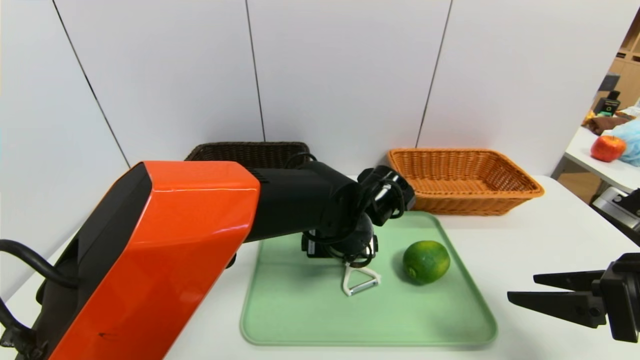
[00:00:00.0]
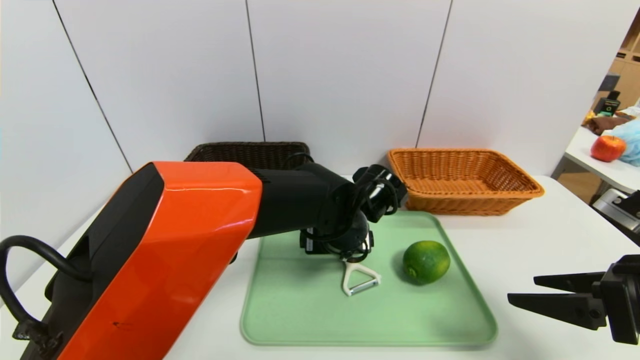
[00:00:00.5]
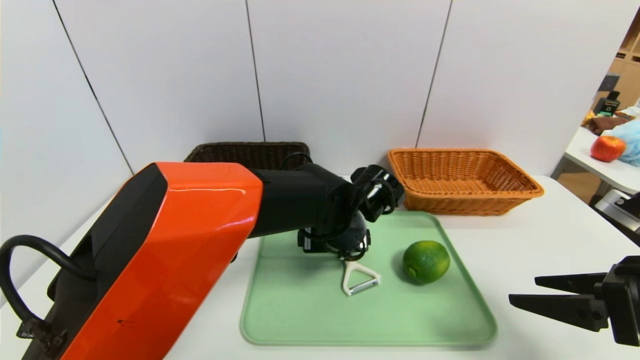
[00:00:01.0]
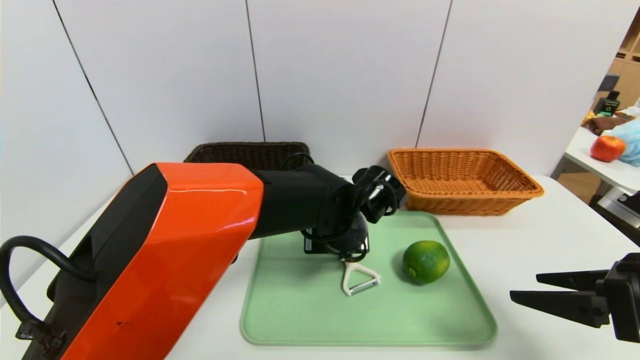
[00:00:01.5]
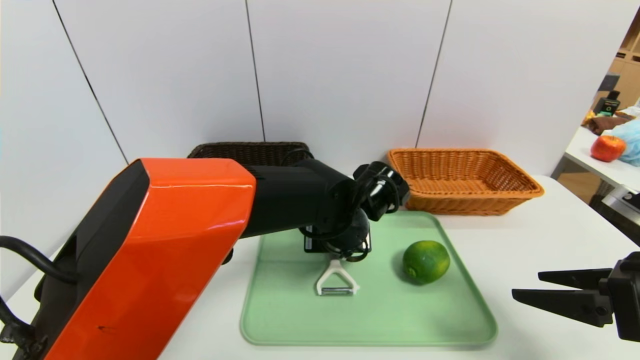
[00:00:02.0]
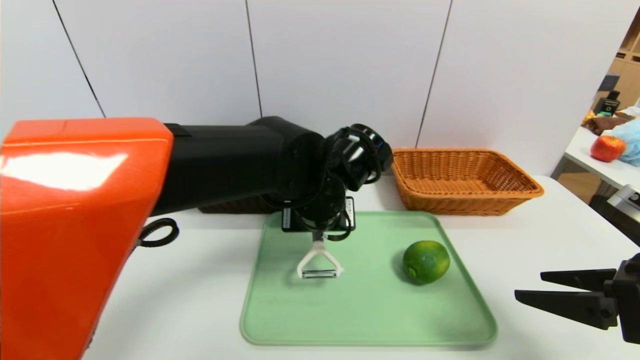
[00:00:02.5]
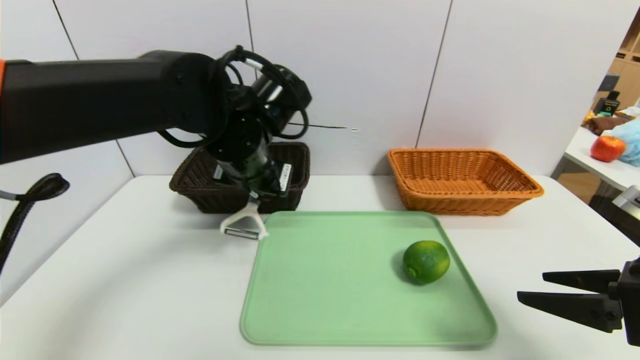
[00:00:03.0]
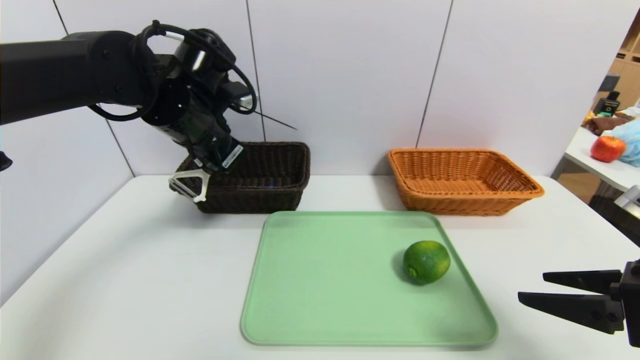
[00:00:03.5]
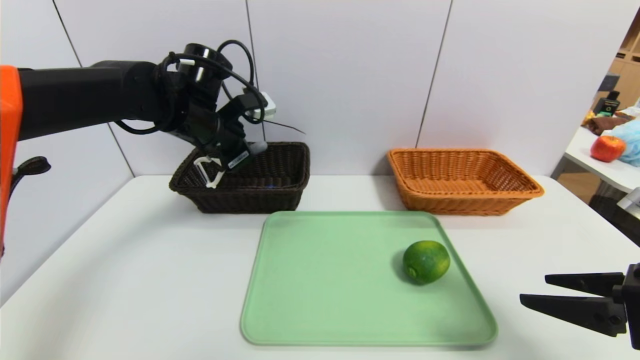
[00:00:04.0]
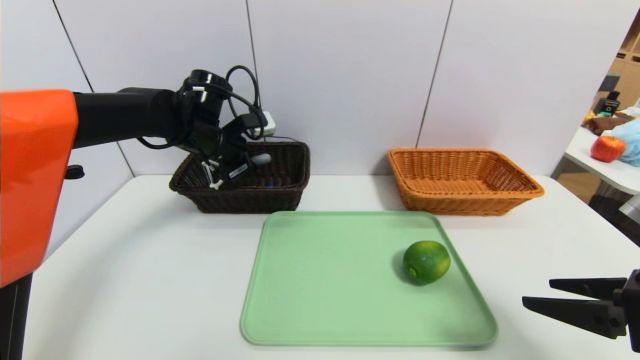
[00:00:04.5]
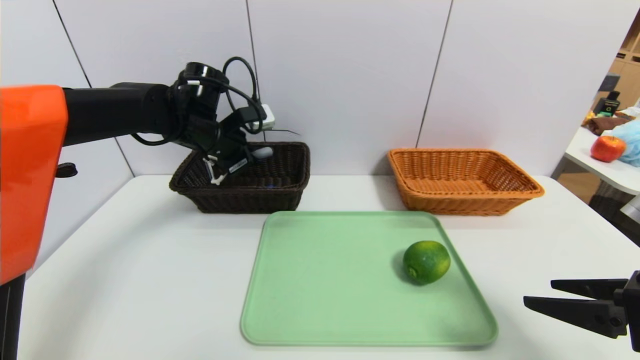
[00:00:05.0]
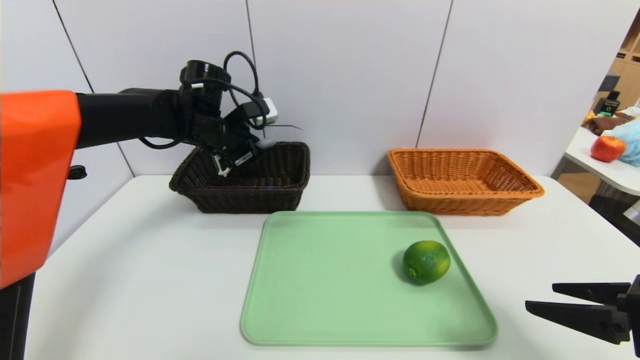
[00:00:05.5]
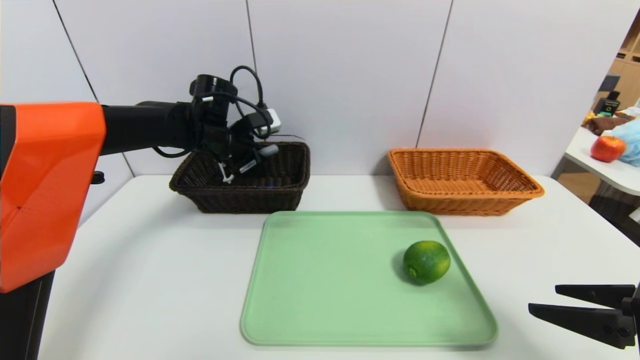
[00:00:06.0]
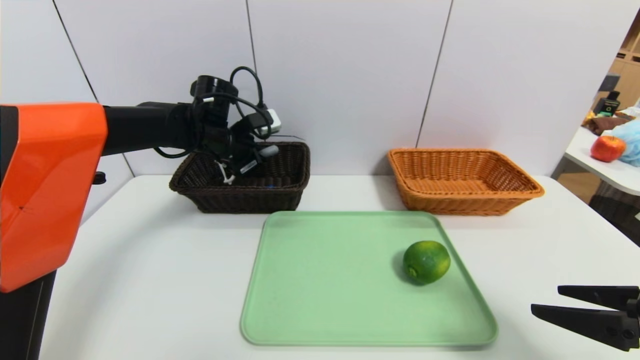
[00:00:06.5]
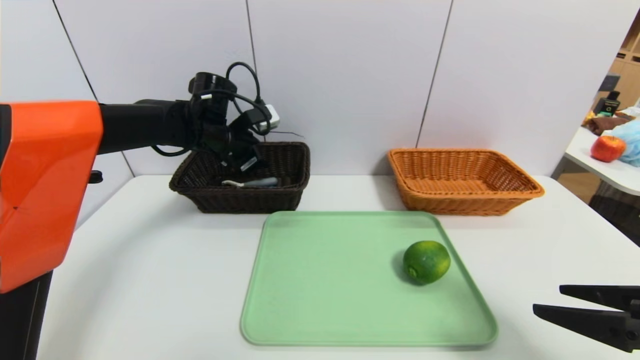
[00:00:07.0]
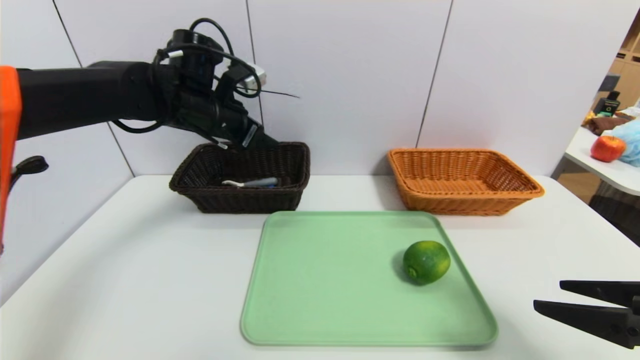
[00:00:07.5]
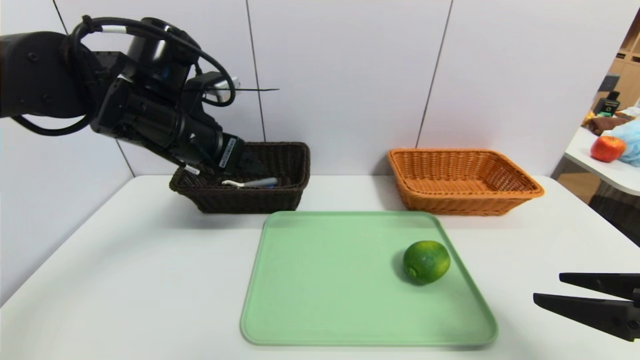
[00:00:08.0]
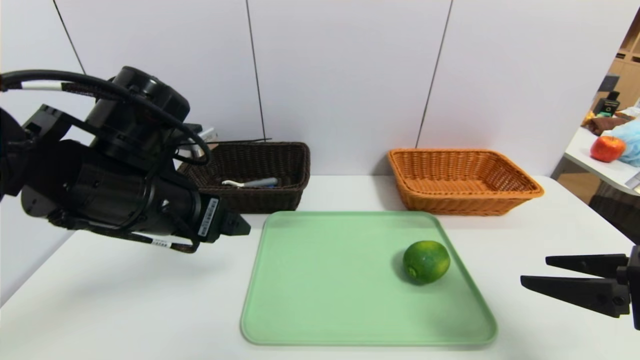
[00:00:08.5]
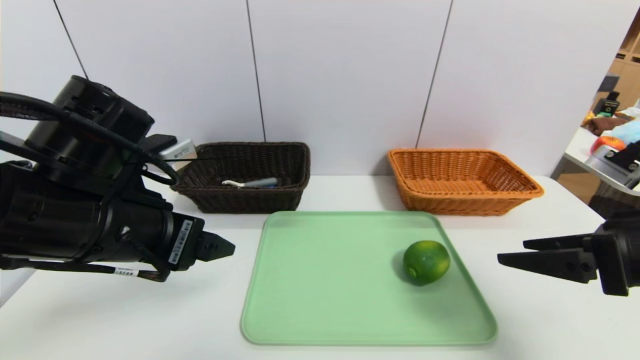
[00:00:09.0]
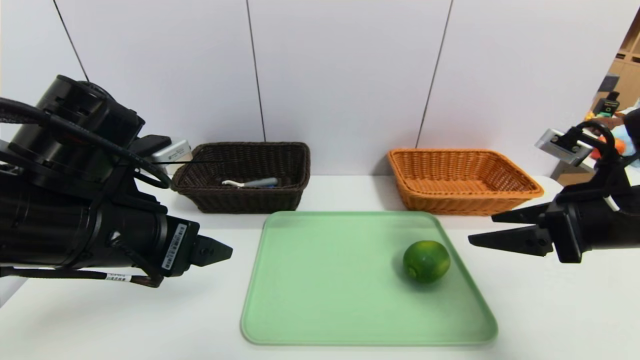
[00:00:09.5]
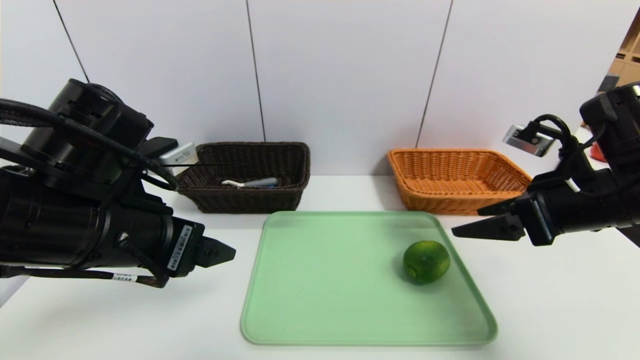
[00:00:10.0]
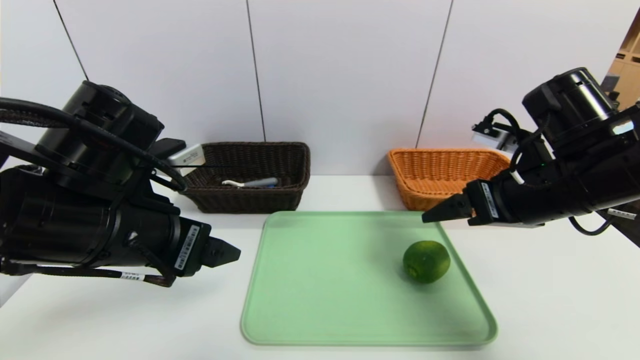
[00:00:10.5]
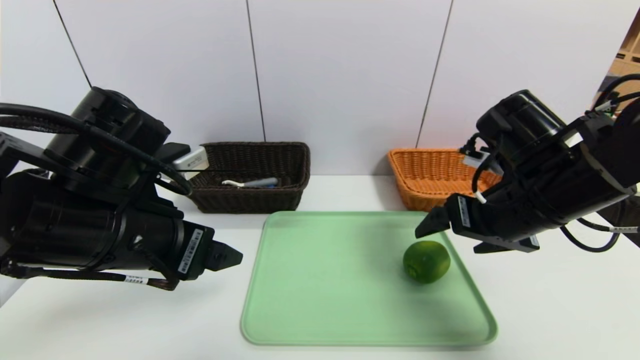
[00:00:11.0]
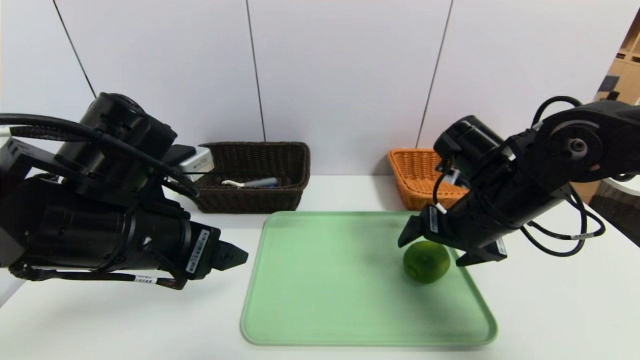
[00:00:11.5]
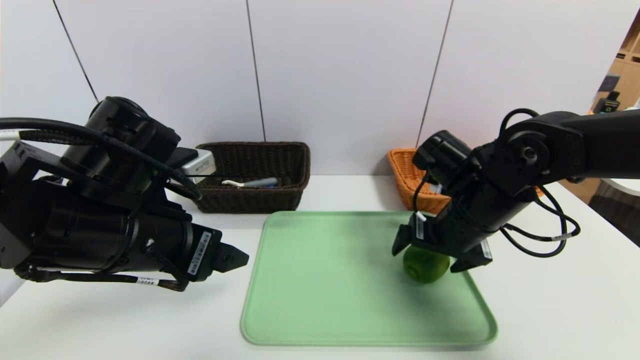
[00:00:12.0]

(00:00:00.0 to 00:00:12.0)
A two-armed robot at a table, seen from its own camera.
Task of the whole recording: place the food in the right basket with the right gripper, and place the non food items in the left basket with the left gripper.
Step, 00:00:00.0 - 00:00:07.0: Grasp the peeler and put it in the left basket.
00:00:00.0 - 00:00:02.0: The left gripper closes.
00:00:02.0 - 00:00:04.0: The left gripper shifts some 25 cm to the left, upward and forward.
00:00:04.0 - 00:00:06.0: The left gripper is displaced forward by approximately 5 cm.
00:00:06.0 - 00:00:08.0: The left gripper is displaced backward and upward by some 15 cm, and opens up.
00:00:08.0 - 00:00:10.0: The right gripper shifts roughly 10 cm forward. The left gripper shifts some 10 cm backward.
00:00:10.0 - 00:00:12.0: The right gripper heads to the left, downward and forward, covering some 15 cm.

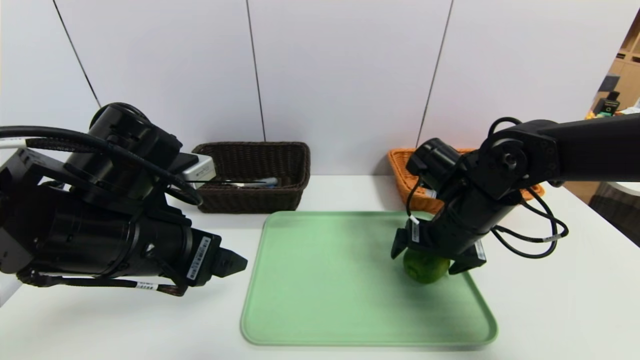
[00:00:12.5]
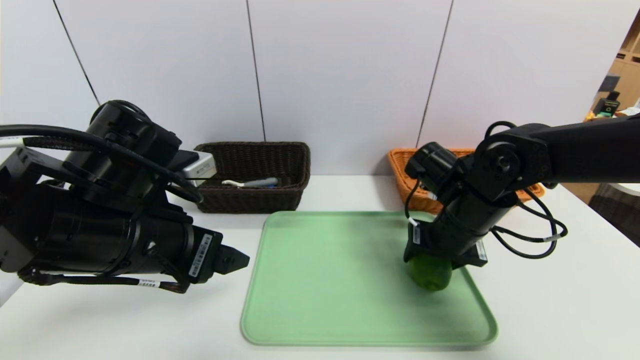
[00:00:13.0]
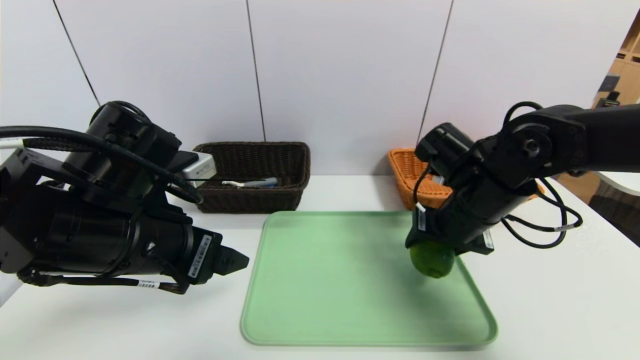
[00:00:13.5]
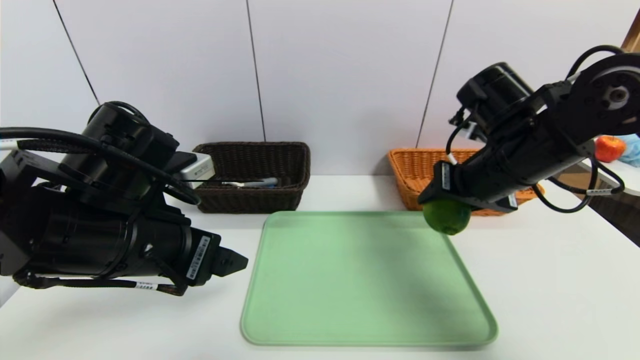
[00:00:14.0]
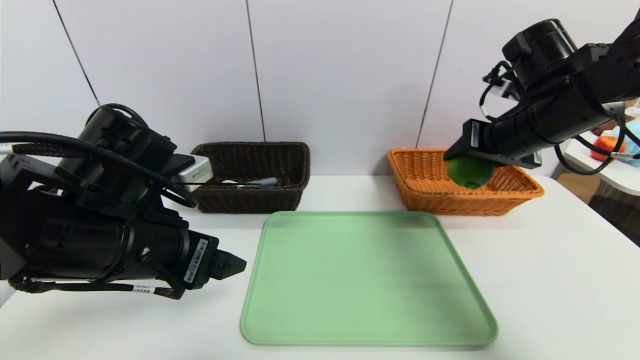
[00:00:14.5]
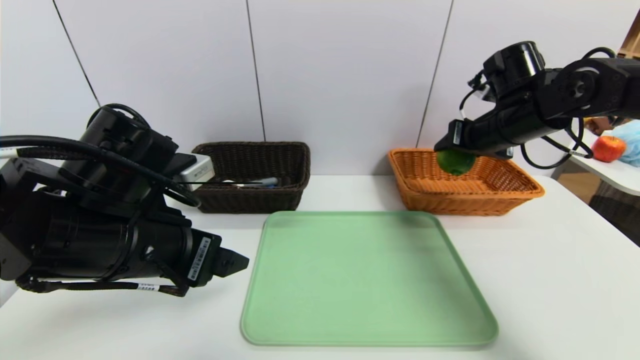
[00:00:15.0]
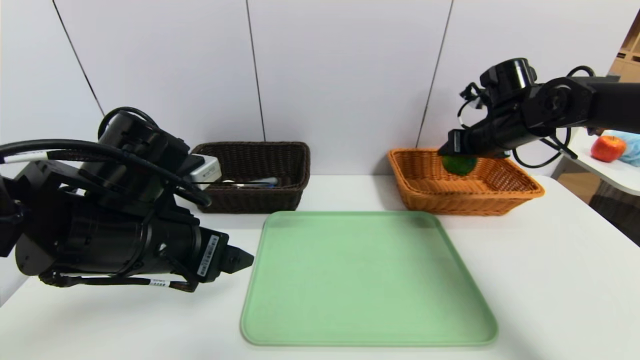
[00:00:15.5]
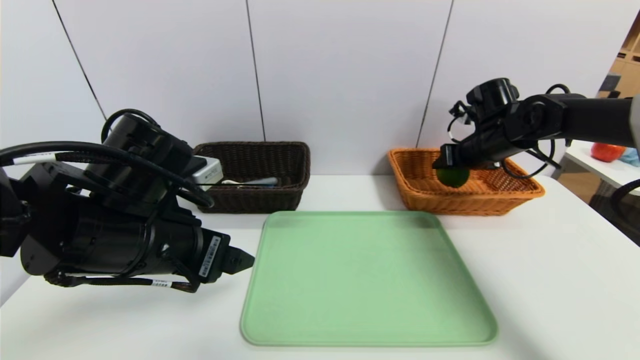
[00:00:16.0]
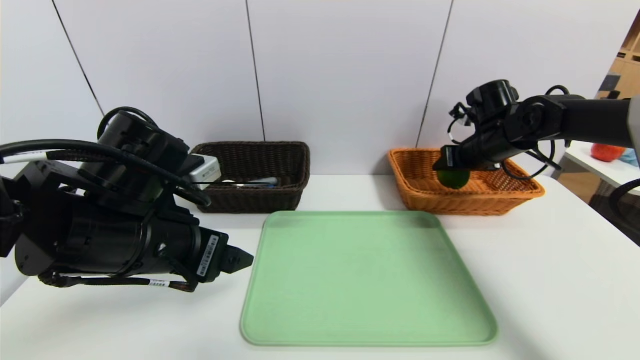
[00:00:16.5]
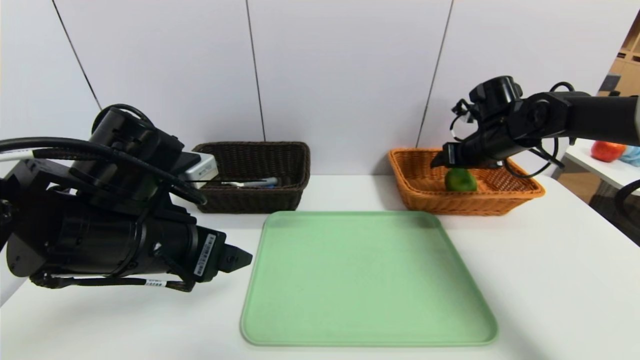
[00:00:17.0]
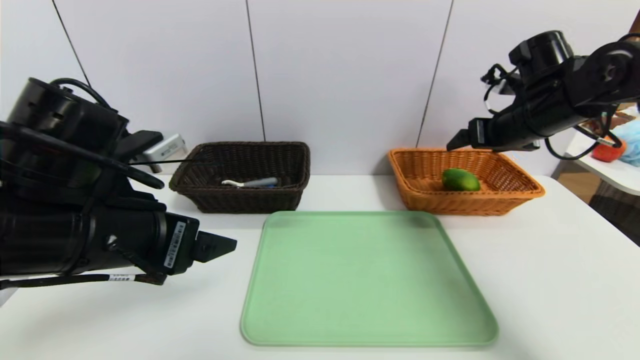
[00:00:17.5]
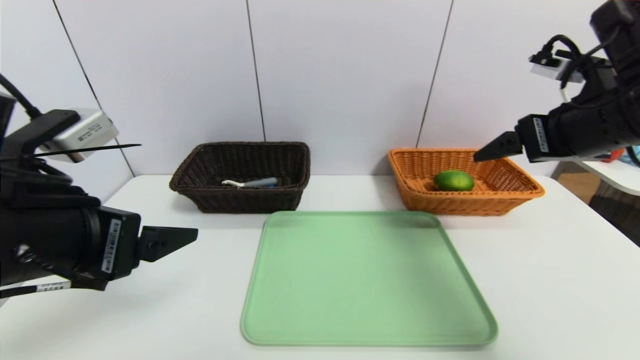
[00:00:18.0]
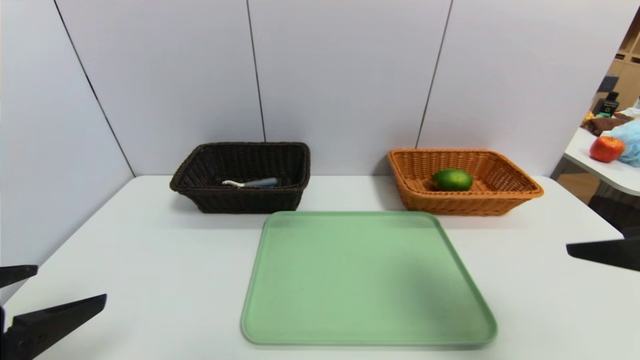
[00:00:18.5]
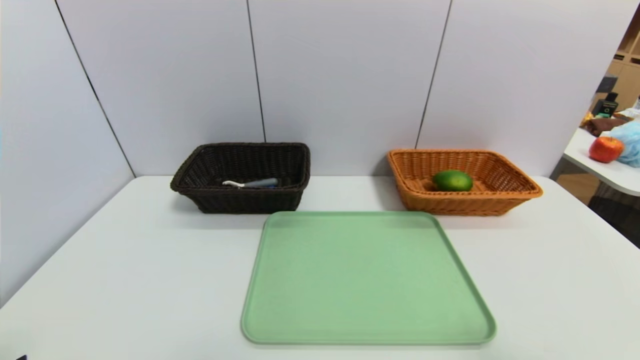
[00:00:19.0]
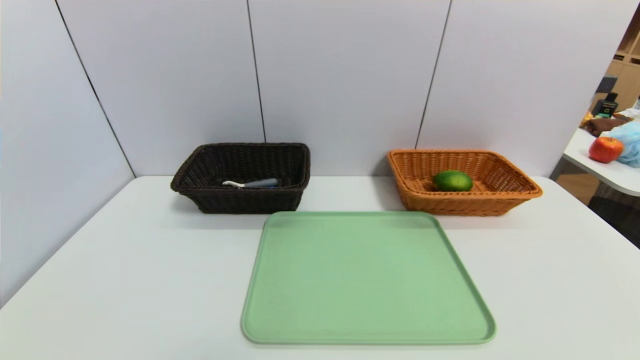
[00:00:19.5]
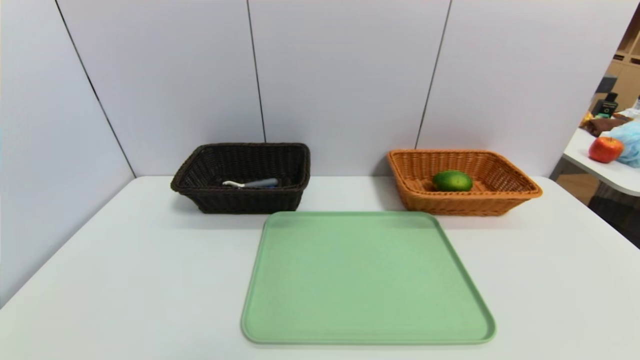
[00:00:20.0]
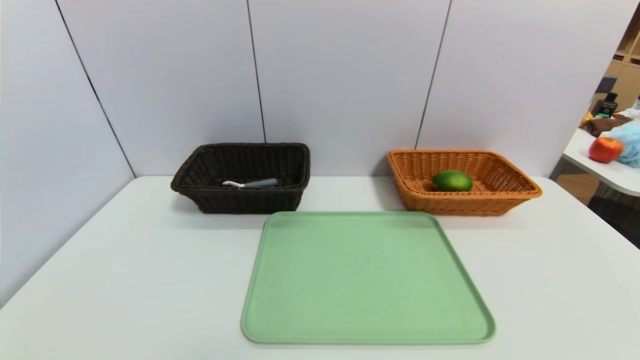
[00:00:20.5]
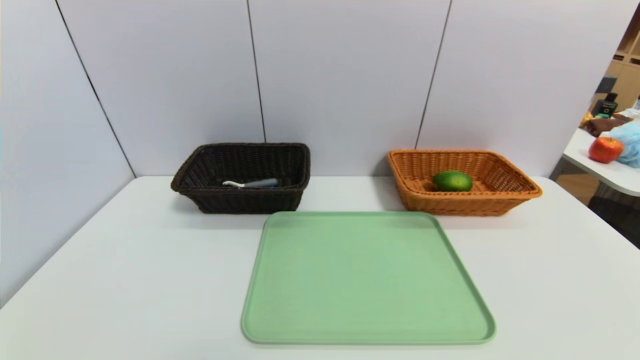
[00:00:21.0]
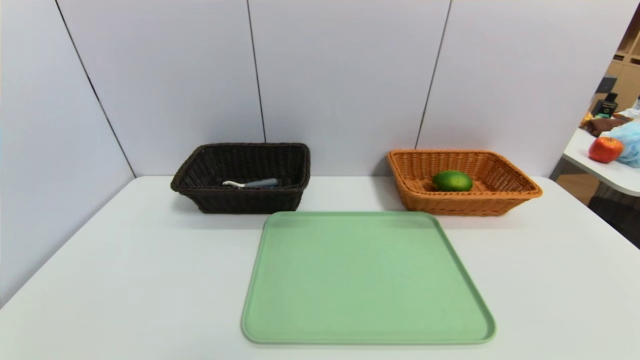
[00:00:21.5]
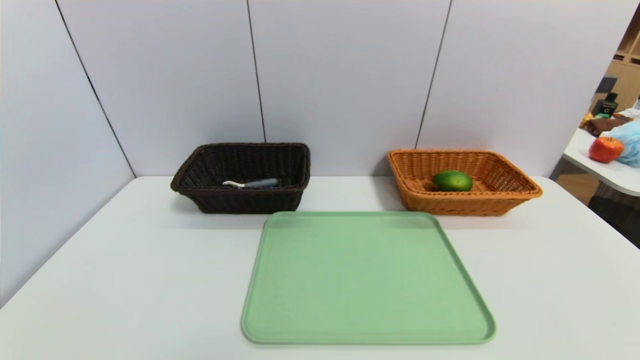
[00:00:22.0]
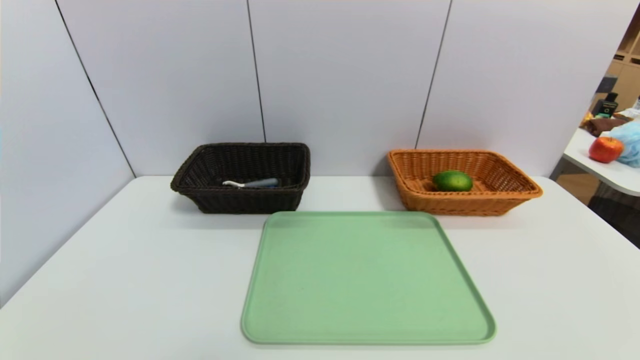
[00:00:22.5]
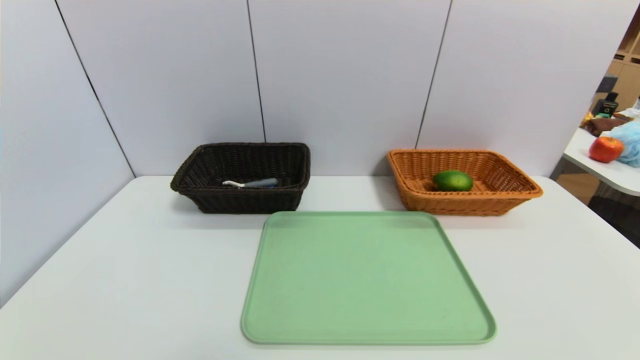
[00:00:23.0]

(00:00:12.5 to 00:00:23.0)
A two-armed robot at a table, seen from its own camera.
Task of the whole recording: place the food in the right basket with the right gripper, and place the non food items in the left basket with the left gripper.
Step, 00:00:12.5 - 00:00:17.0: Grasp the lemon and put it in the right basket.
00:00:12.5 - 00:00:14.5: The right gripper moves upward and to the right, some 15 cm, and closes its fingers.
00:00:14.5 - 00:00:16.5: The right gripper travels forward and downward by roughly 15 cm.
00:00:16.5 - 00:00:19.0: The right gripper goes approximately 40 cm backward, and opens. Meanwhile the left gripper heads backward and to the left, covering roughly 25 cm.
